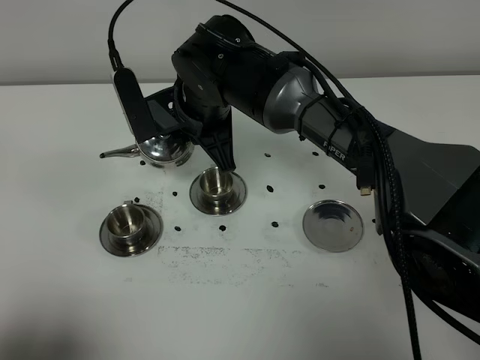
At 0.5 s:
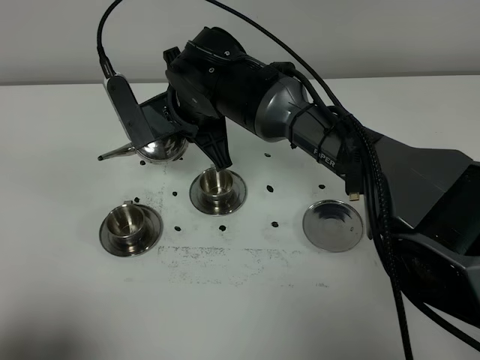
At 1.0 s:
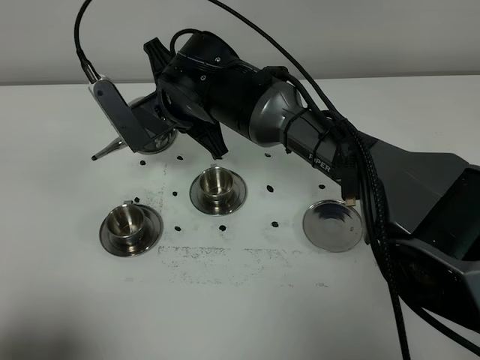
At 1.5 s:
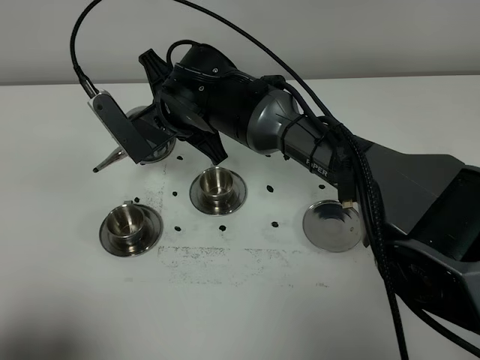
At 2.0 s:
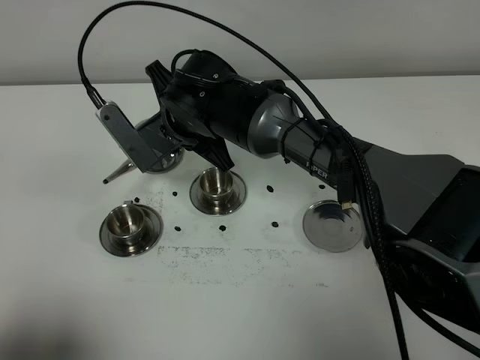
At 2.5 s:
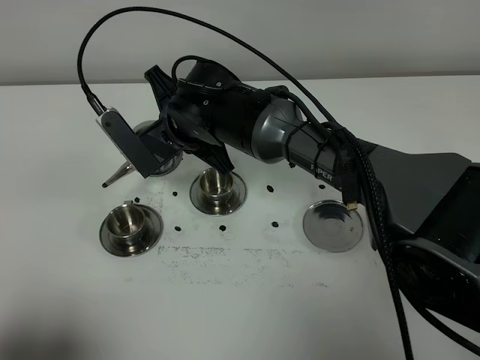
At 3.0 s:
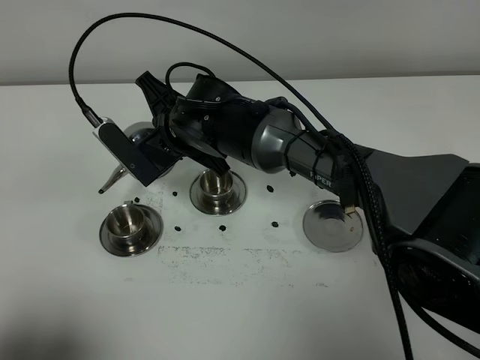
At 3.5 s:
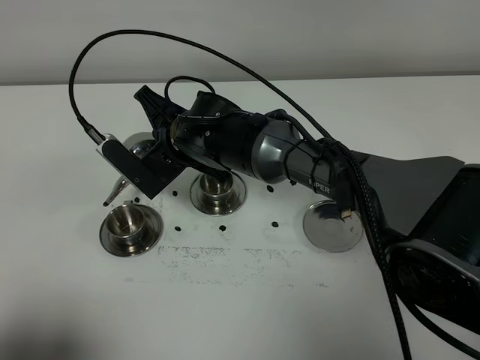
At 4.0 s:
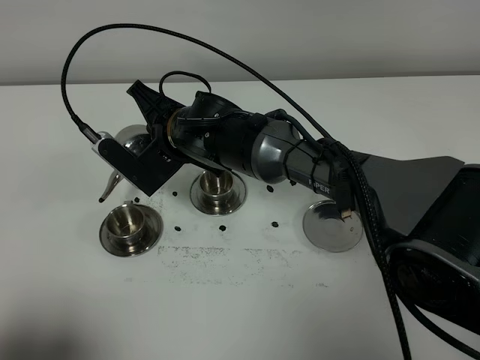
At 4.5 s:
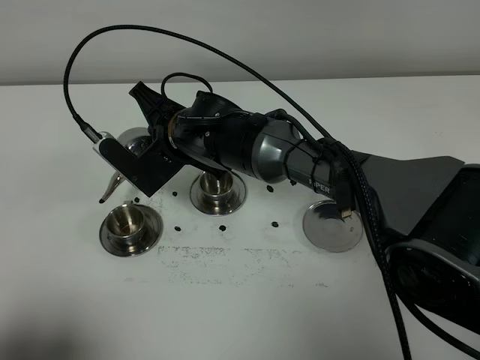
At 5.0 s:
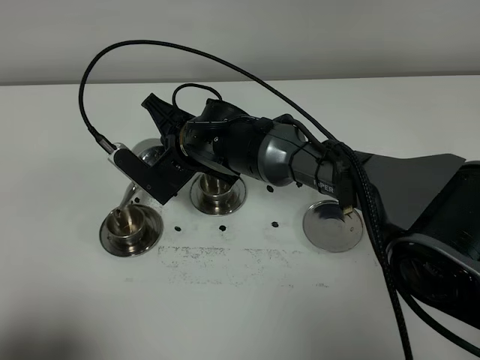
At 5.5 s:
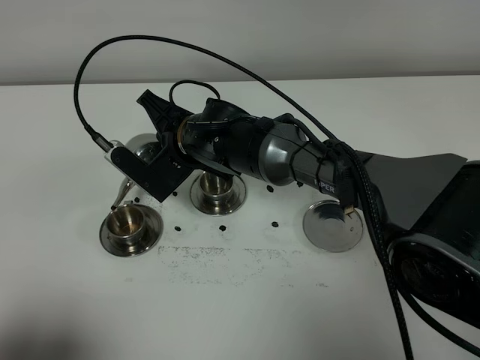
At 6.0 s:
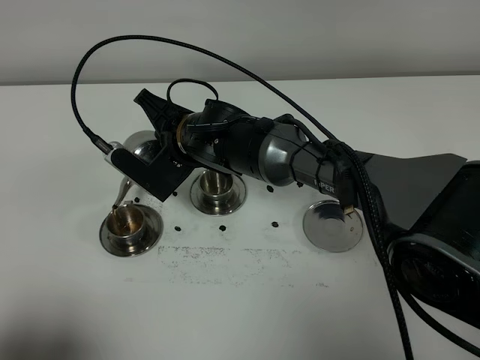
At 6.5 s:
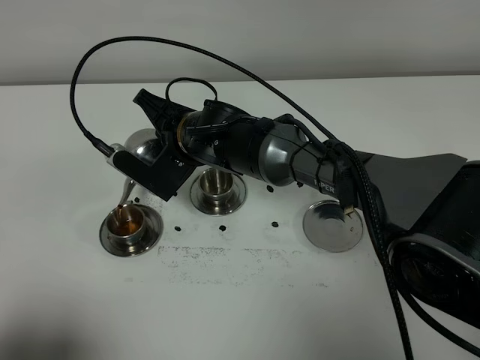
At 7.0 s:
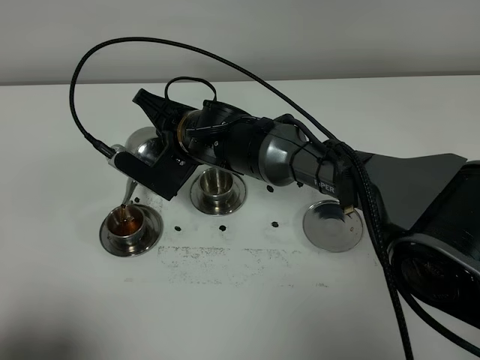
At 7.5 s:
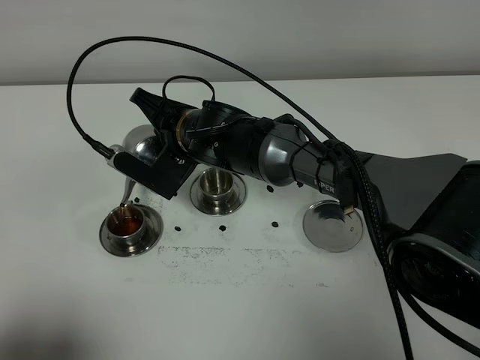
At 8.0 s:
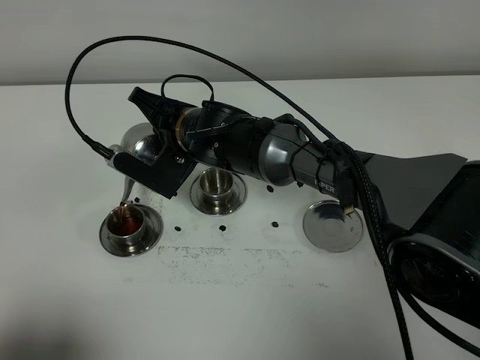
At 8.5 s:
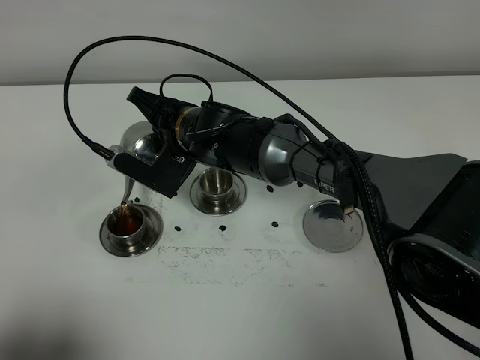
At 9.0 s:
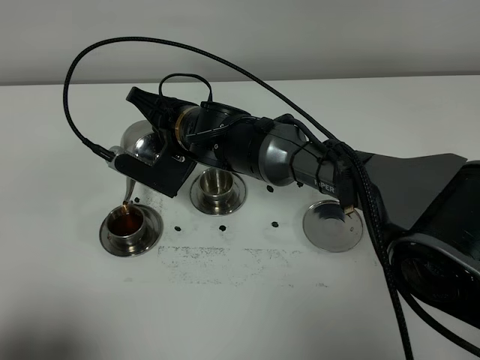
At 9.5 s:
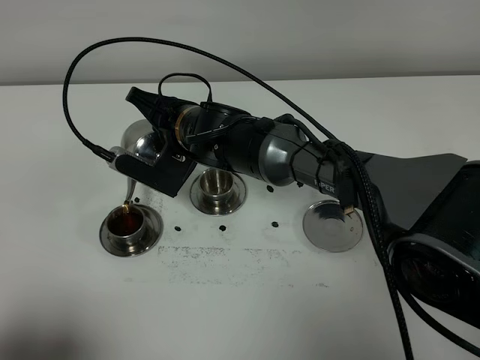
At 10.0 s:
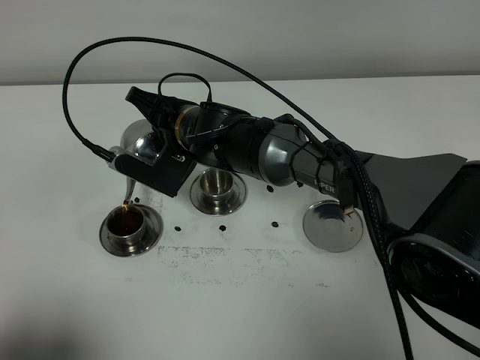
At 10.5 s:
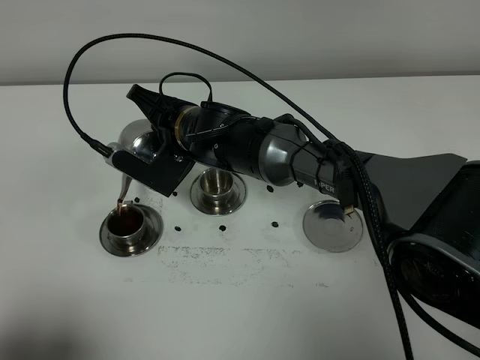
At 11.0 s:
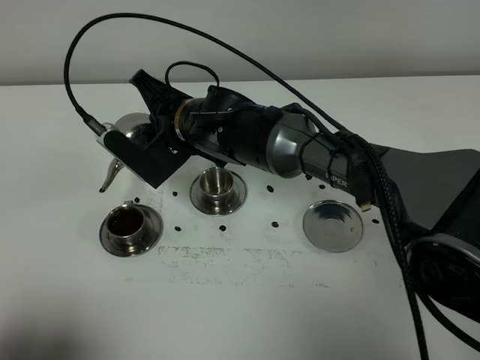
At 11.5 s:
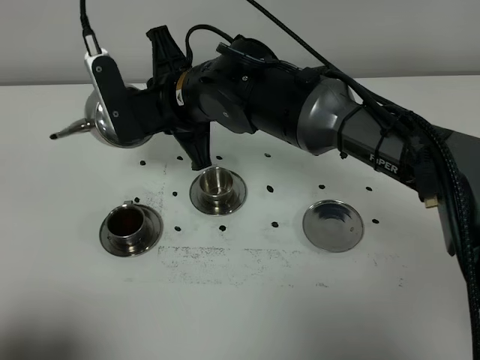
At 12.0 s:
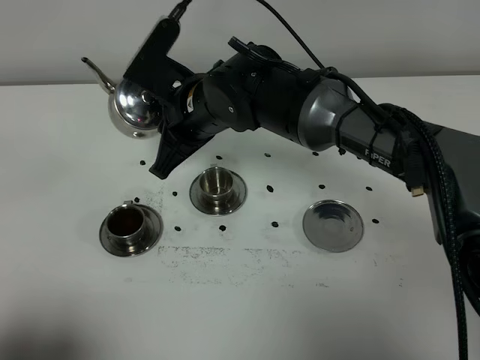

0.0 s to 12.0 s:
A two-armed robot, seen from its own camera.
Task of the whole recording: grasp the stainless steel teapot and pour the tea into the two stainless steel teacups one by one, put the stainless steel teapot back in its original place.
2.0 to 6.0 s: There are only small adjustments of the grippers.
6.0 to 8.0 s: The grippers move only a little.
8.0 to 10.0 s: Neither gripper changes place.
10.0 to 12.0 s: The right gripper travels upward by some 5 cm.

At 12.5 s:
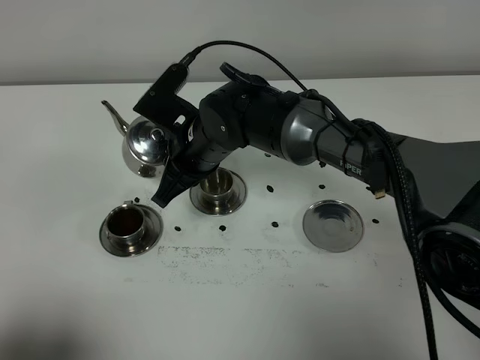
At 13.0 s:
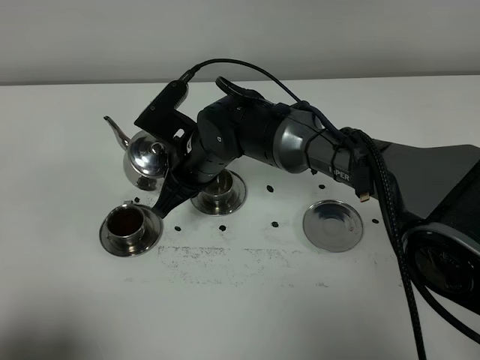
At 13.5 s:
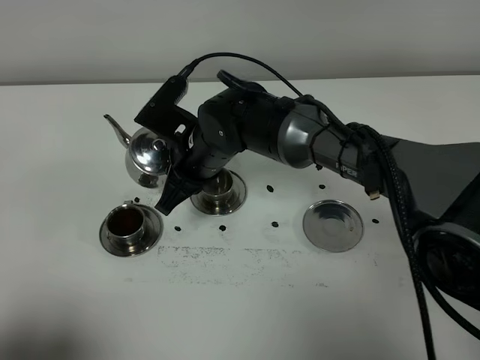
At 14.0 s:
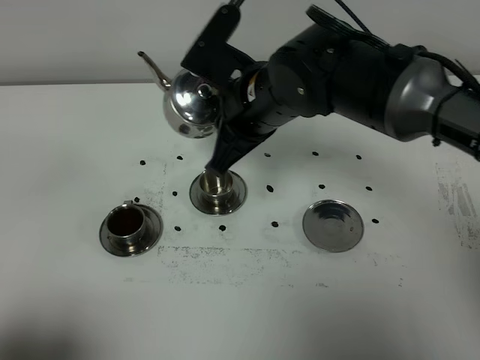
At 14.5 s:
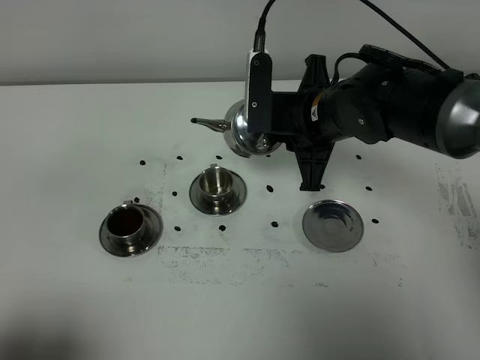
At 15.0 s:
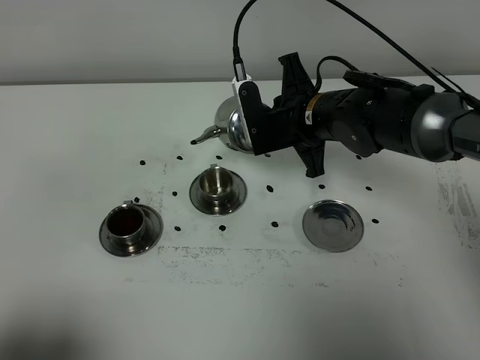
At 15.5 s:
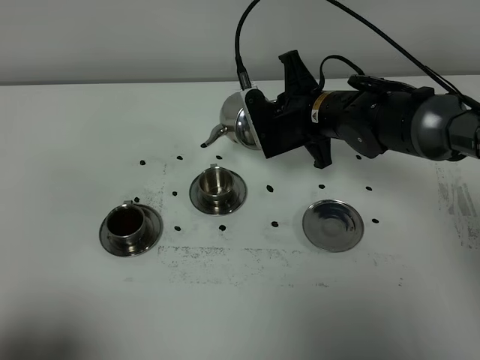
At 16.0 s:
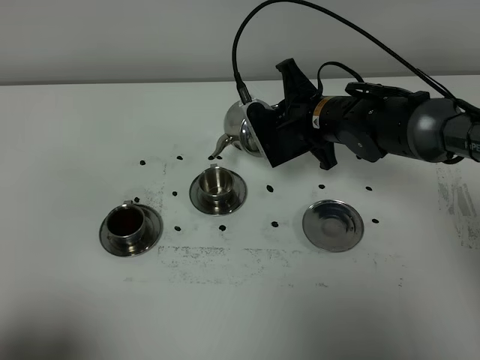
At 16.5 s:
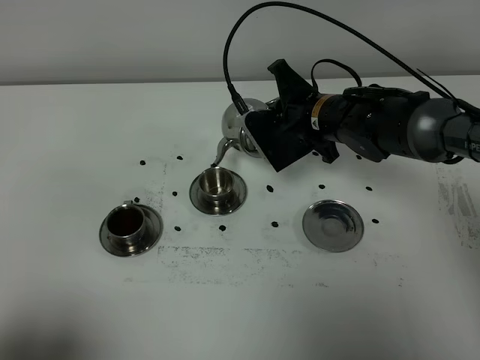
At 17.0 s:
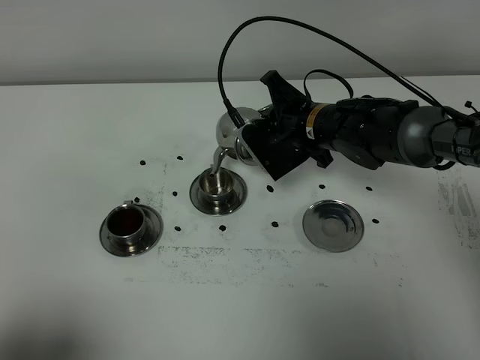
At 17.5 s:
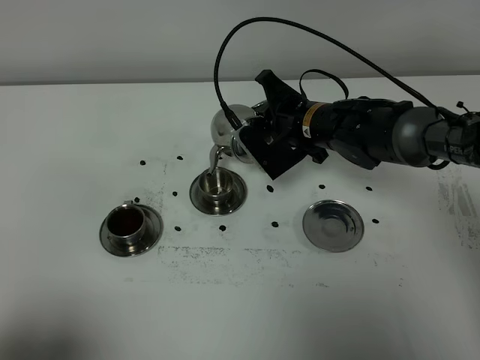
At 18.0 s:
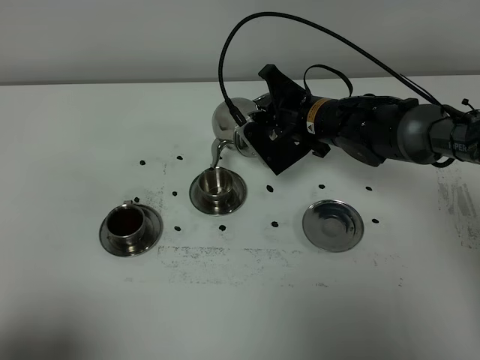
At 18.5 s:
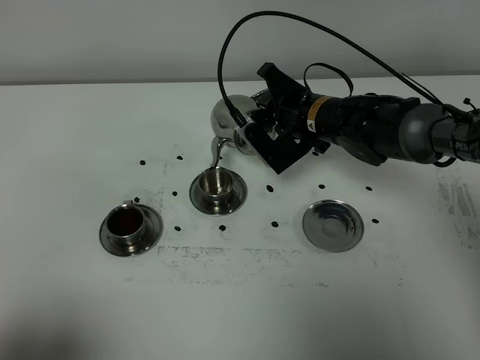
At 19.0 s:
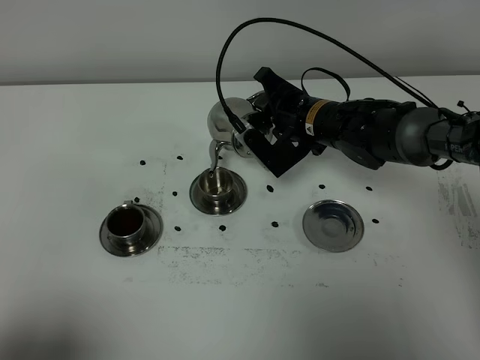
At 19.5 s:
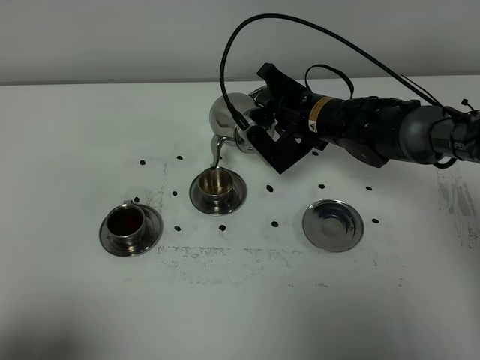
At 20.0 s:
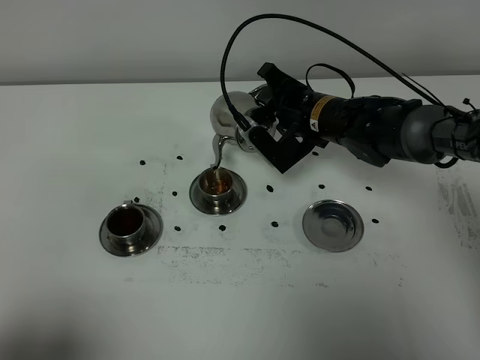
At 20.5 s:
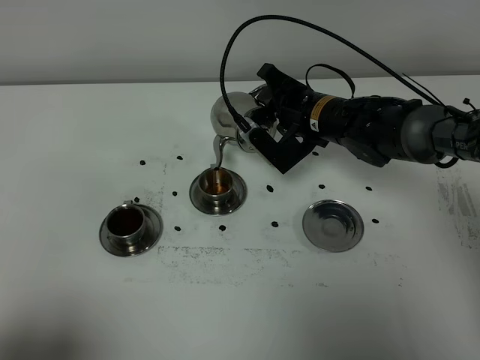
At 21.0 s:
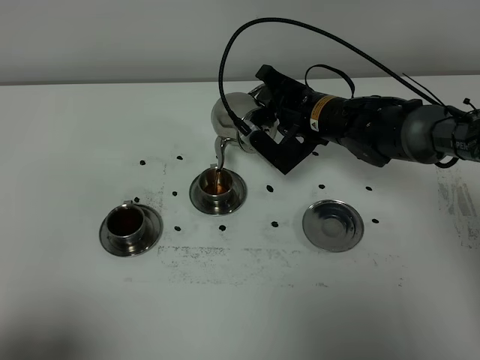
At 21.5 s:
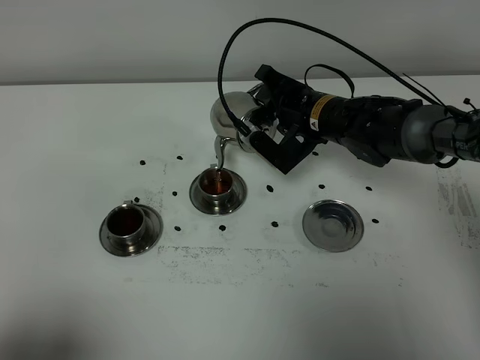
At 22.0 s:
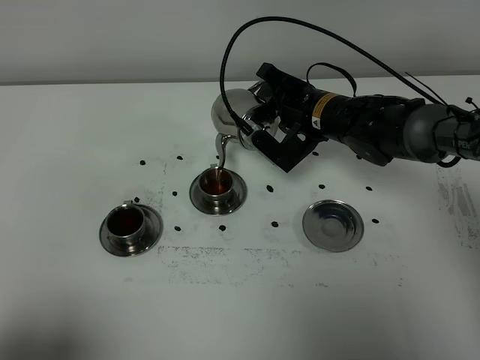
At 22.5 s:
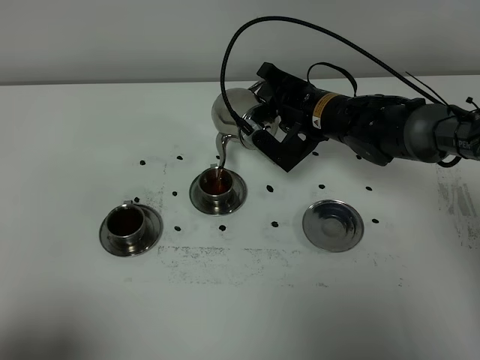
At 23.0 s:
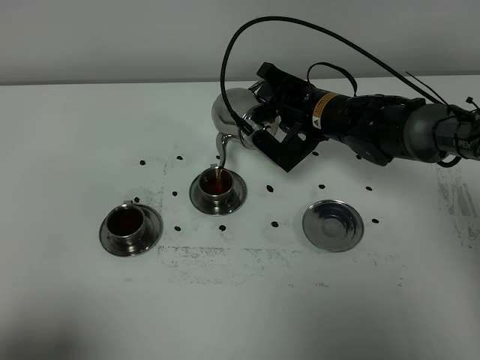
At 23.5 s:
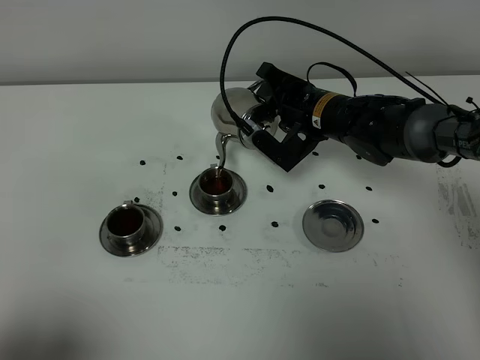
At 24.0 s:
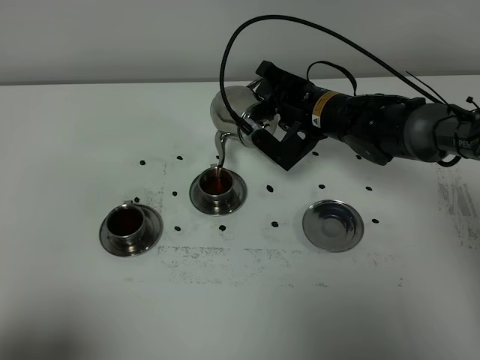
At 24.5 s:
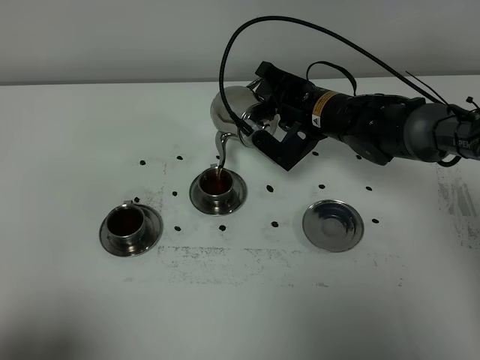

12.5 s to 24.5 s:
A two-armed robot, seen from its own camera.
Task of the whole recording: grasp the stainless steel teapot and pour the tea into the two stainless steel teacups one by one, put the stainless steel teapot back in its original place.
12.5 to 14.5 s: The right gripper travels to the right by about 15 cm.
14.5 to 16.5 s: The right gripper goes about 10 cm forward and downward.
16.5 to 20.5 s: There are only small adjustments of the grippers.
20.5 to 22.5 s: Neither gripper changes place.
22.5 to 24.5 s: Neither gripper changes place.

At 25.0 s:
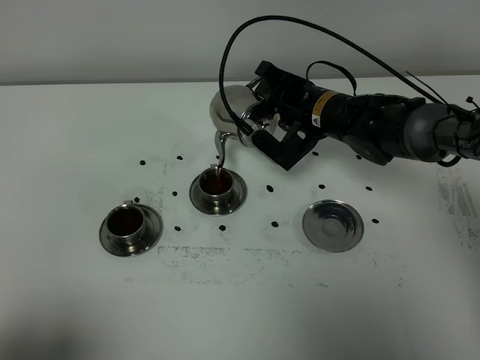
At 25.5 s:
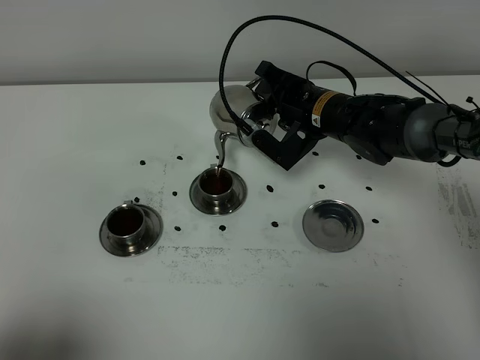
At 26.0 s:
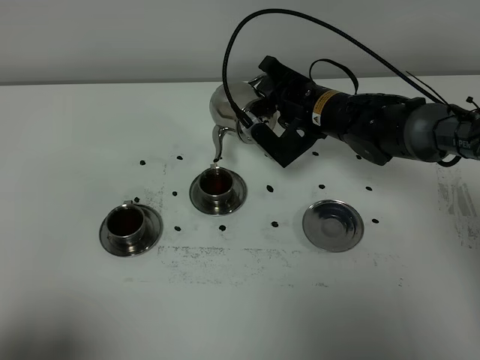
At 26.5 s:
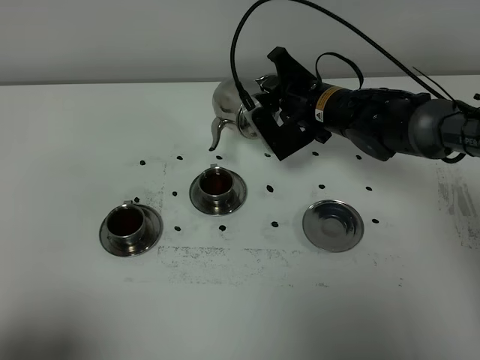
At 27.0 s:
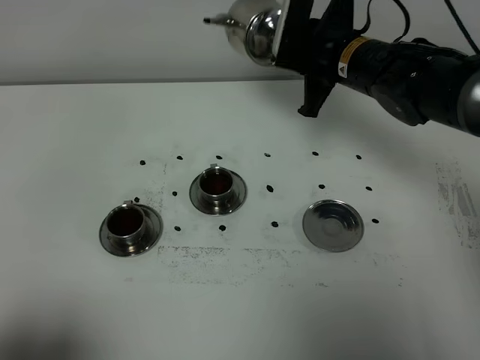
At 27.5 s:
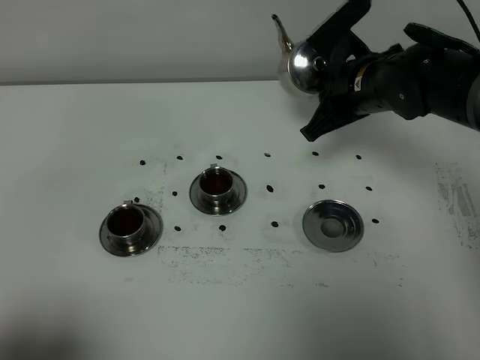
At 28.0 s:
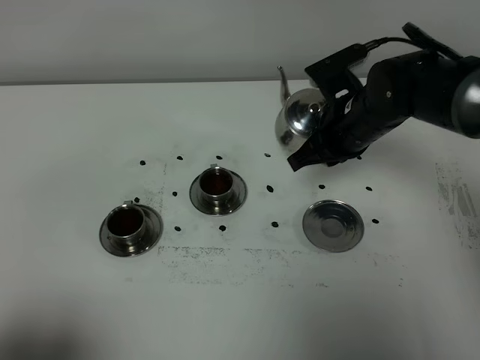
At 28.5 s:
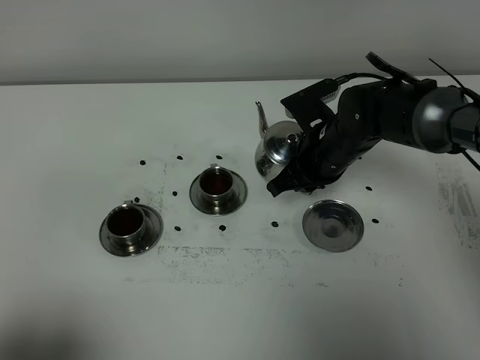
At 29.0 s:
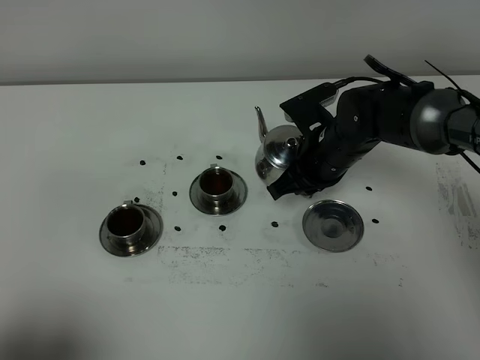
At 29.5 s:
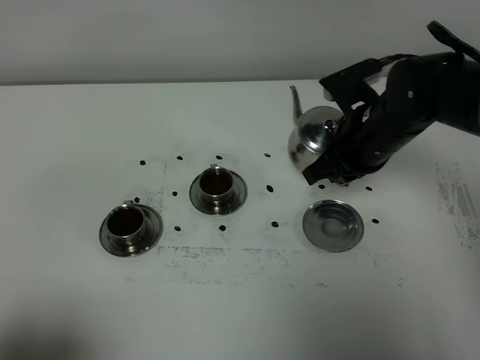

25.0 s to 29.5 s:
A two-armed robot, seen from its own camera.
Task of the whole recording: grasp the stainless steel teapot and pour the tea into the two stainless steel teacups one by one, put the stainless steel teapot back in its original place.
25.0 to 27.0 s: The right gripper travels upward by roughly 10 cm.
27.0 to 29.5 s: The right gripper shifts about 5 cm backward.
